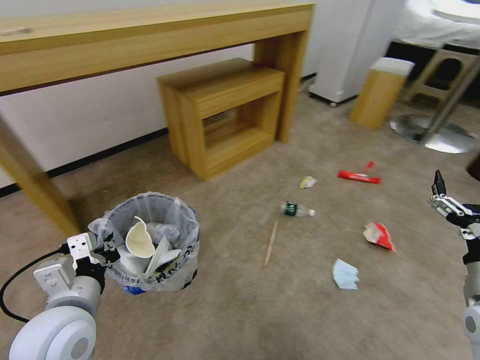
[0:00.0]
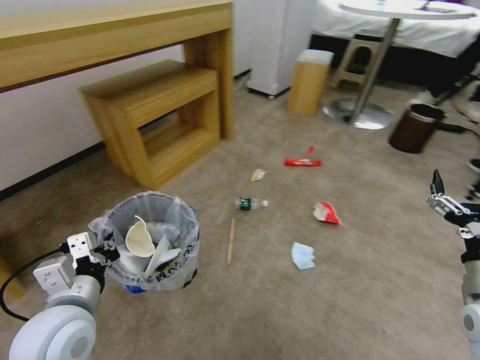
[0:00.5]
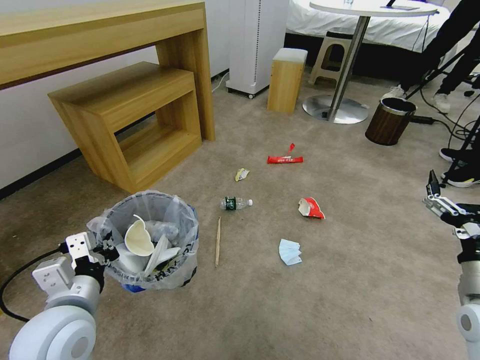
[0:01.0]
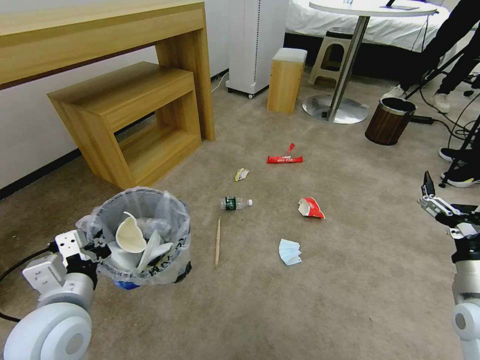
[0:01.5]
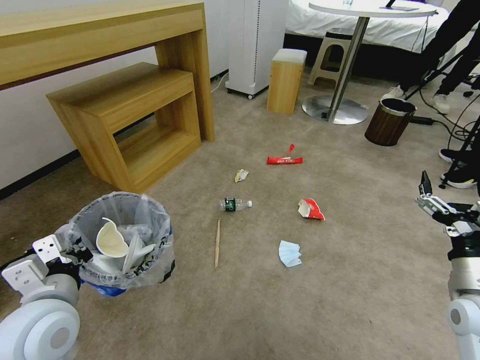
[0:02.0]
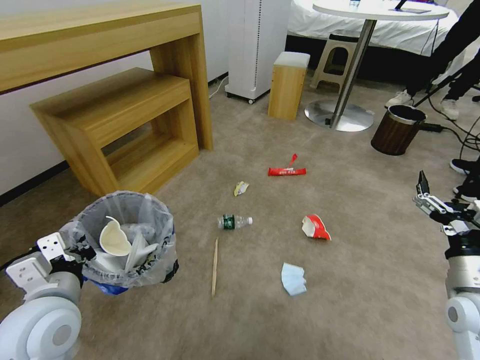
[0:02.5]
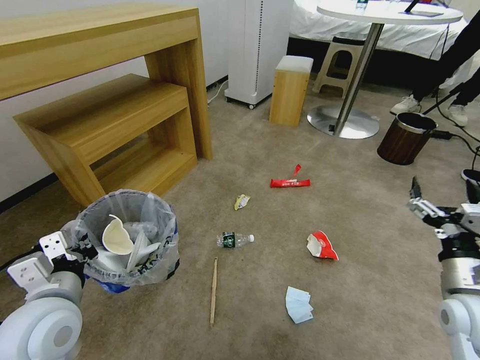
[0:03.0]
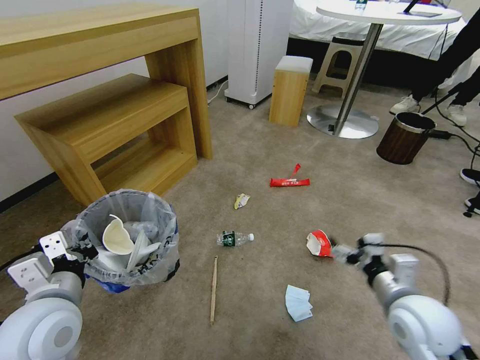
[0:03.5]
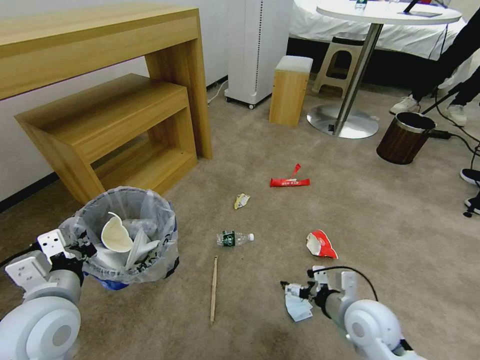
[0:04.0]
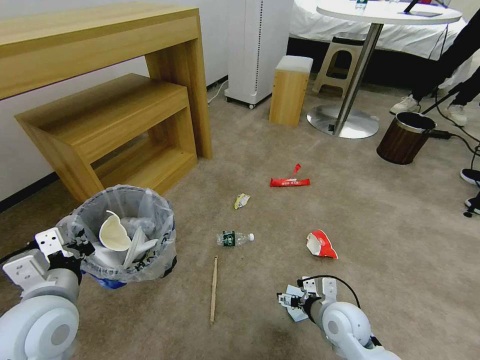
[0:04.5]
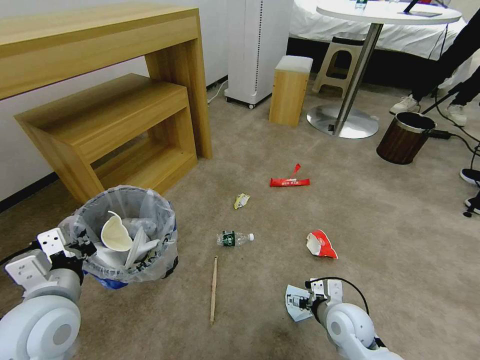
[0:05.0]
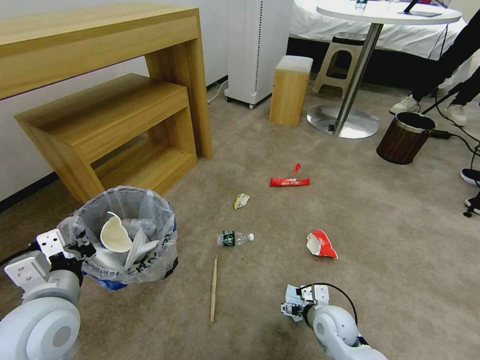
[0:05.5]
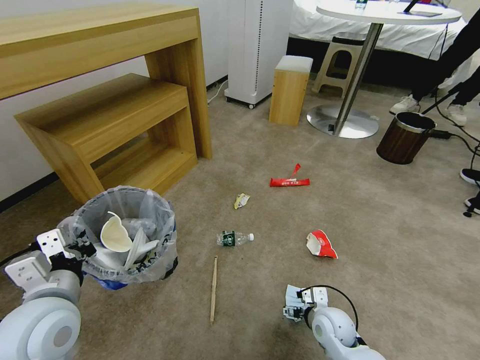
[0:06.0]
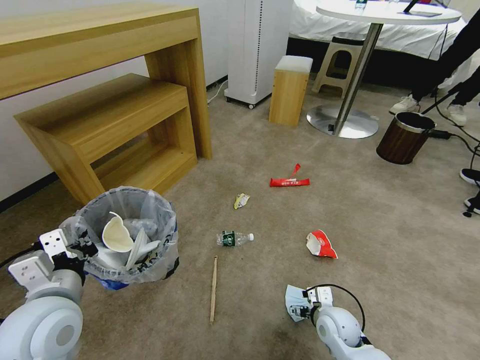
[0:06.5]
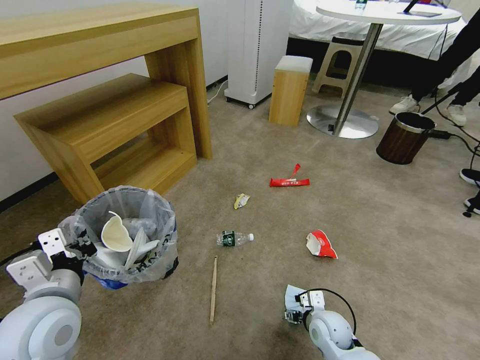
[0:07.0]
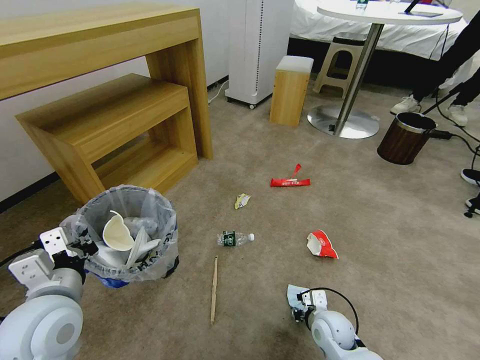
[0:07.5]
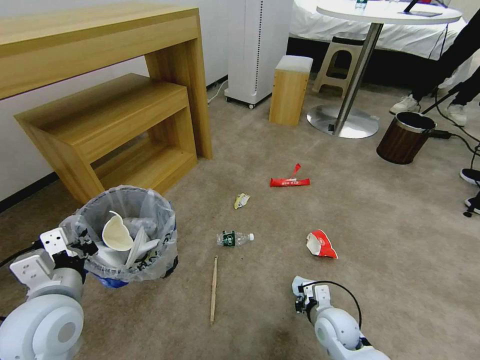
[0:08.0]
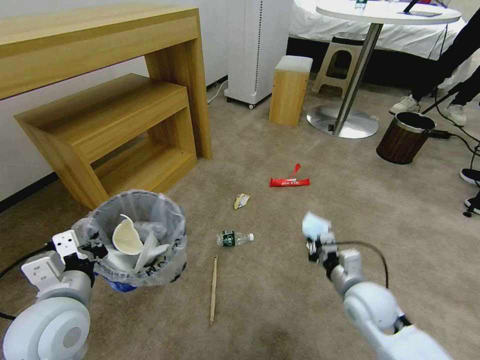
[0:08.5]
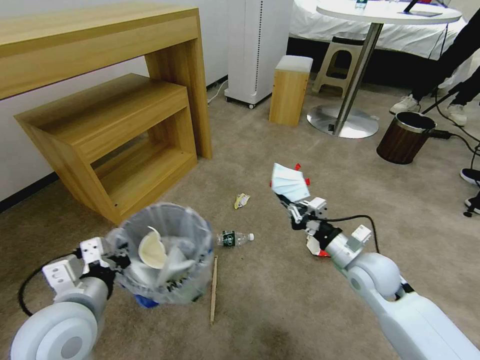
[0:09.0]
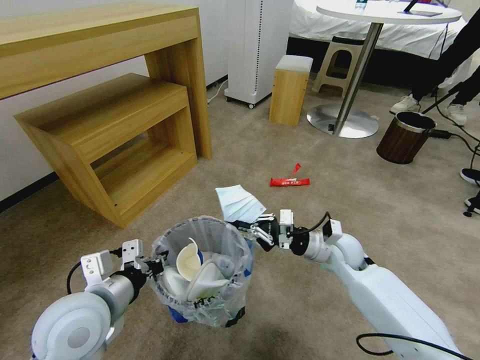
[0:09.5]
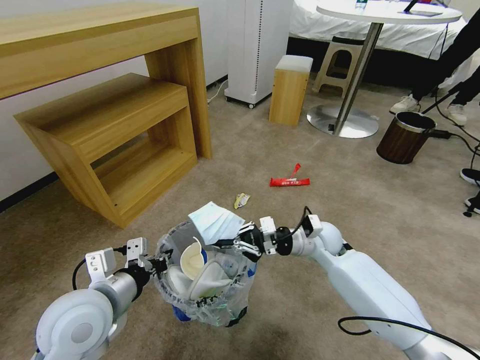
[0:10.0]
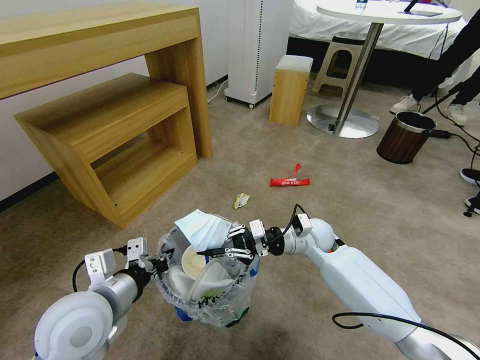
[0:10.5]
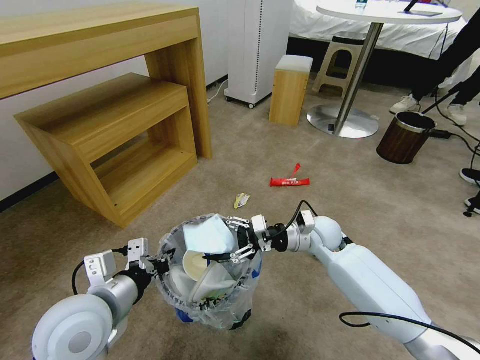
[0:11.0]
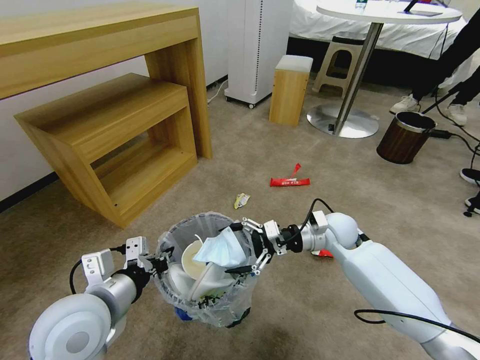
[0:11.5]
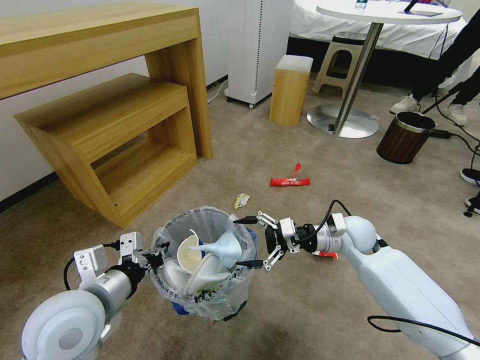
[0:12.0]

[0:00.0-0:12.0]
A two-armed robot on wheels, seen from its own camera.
Task of the whole recording: Pick up the trash bin and place the garbage on the floor into it.
2.0 to 4.0 s: The right gripper goes about 15 cm to the left and downward.
4.0 to 6.0 s: The right gripper heads downward, covering approximately 15 cm.
6.0 to 8.0 s: The right gripper closes.
8.0 to 10.0 s: The right gripper shifts some 20 cm forward and upward.
10.0 to 12.0 s: The right gripper moves to the right, roughly 5 cm, and opens up.

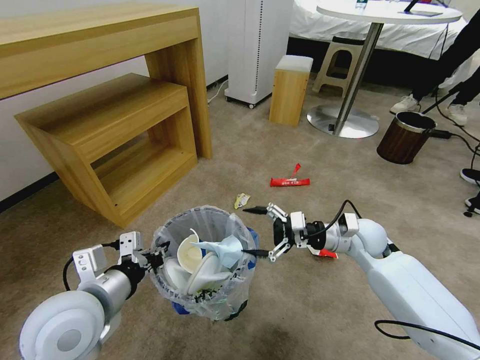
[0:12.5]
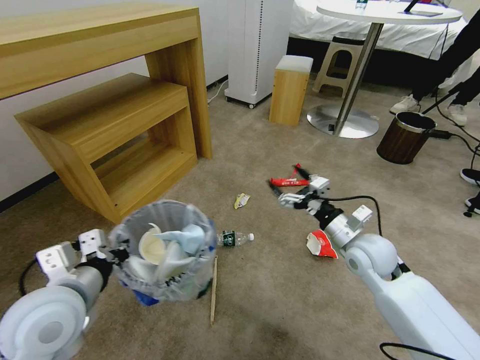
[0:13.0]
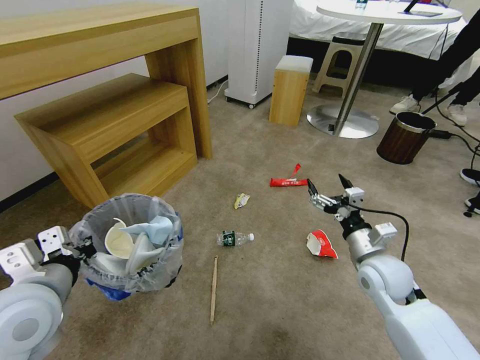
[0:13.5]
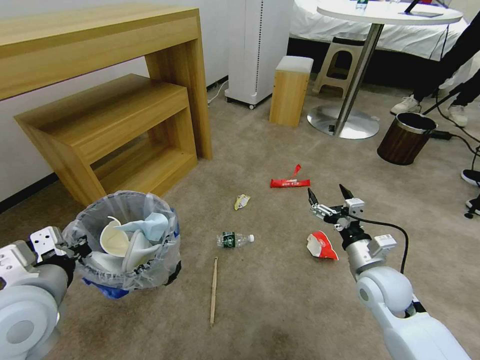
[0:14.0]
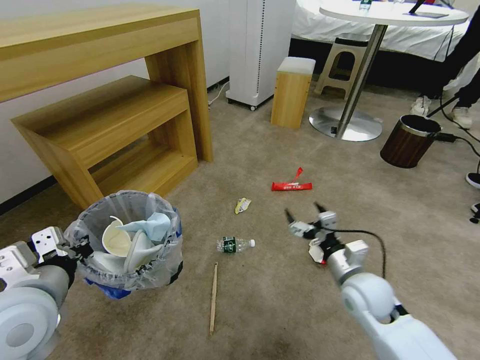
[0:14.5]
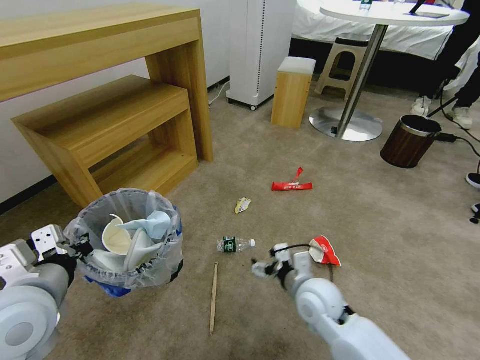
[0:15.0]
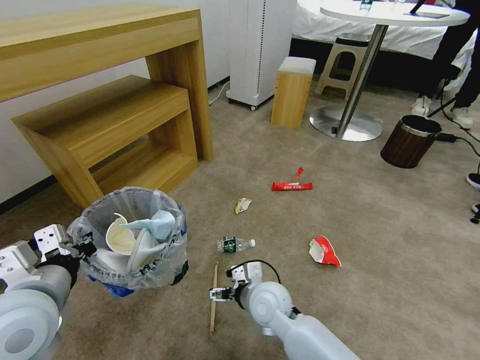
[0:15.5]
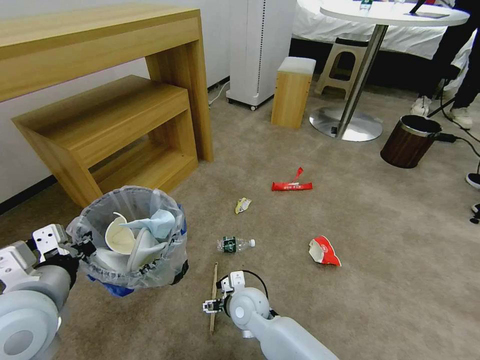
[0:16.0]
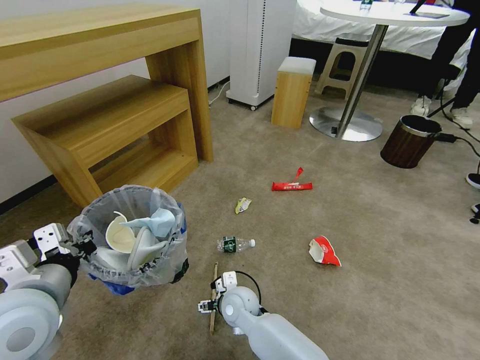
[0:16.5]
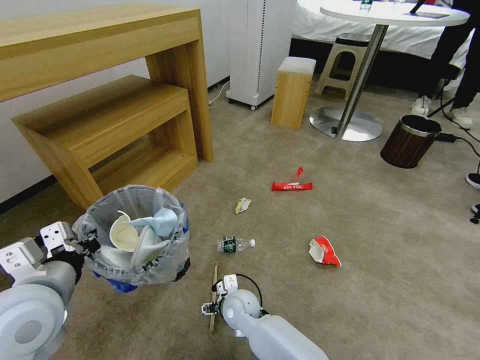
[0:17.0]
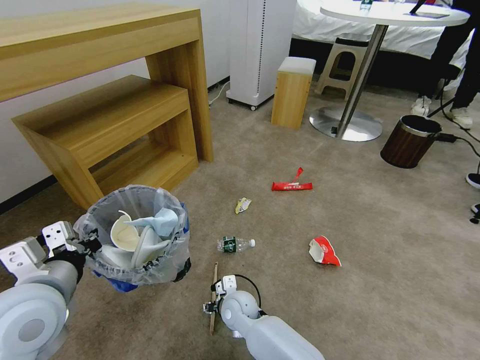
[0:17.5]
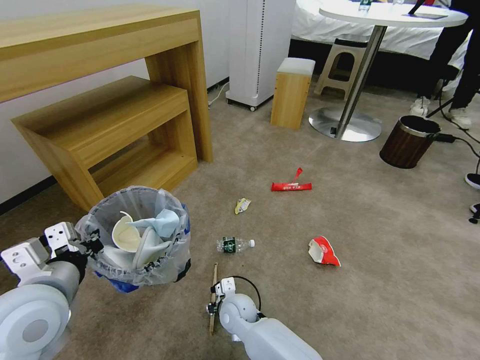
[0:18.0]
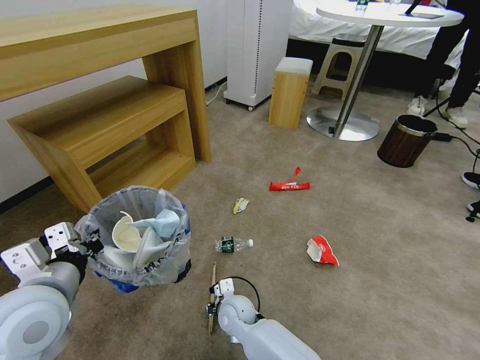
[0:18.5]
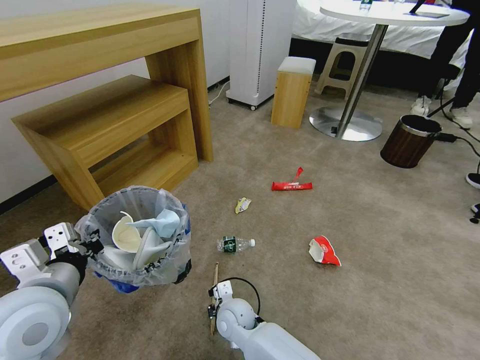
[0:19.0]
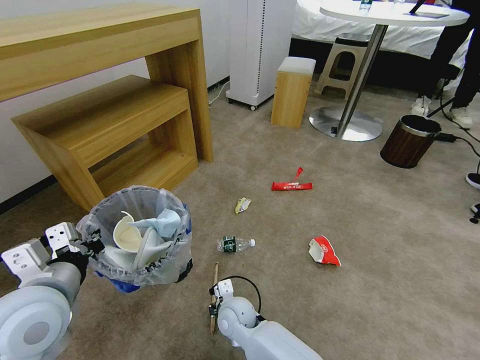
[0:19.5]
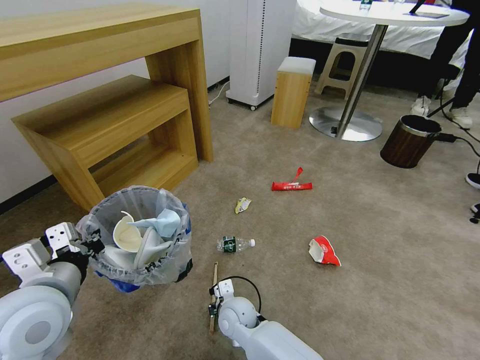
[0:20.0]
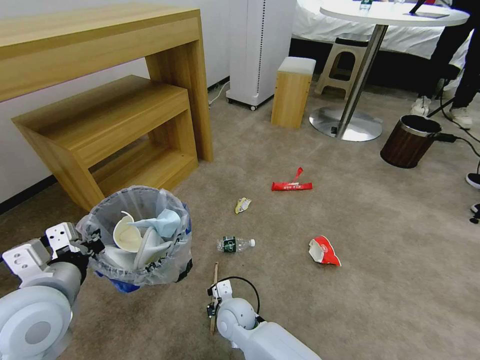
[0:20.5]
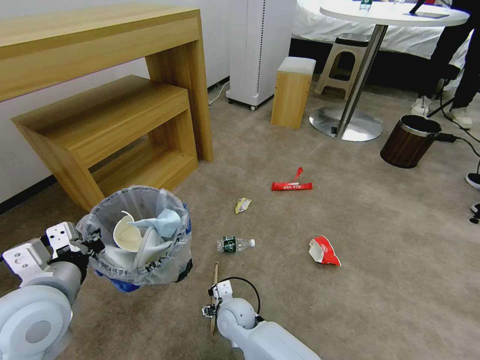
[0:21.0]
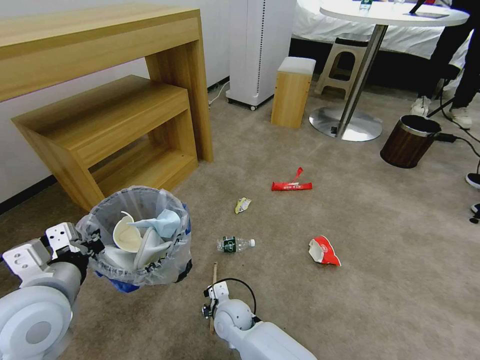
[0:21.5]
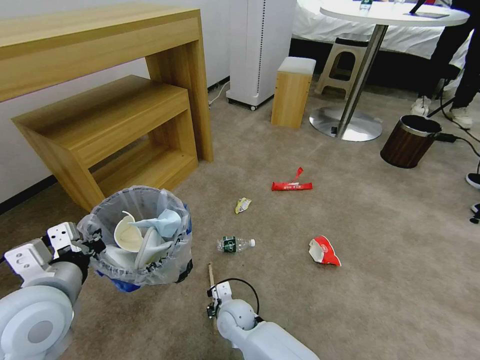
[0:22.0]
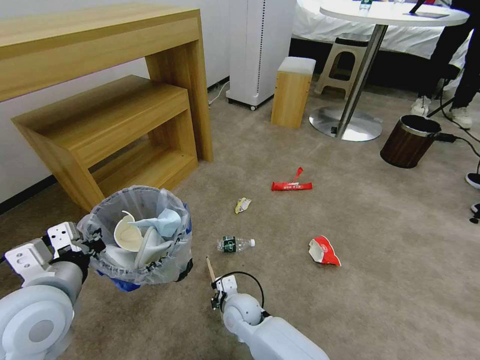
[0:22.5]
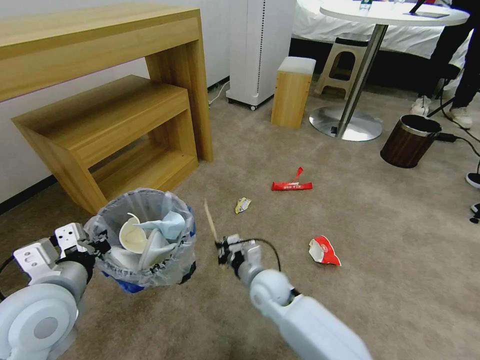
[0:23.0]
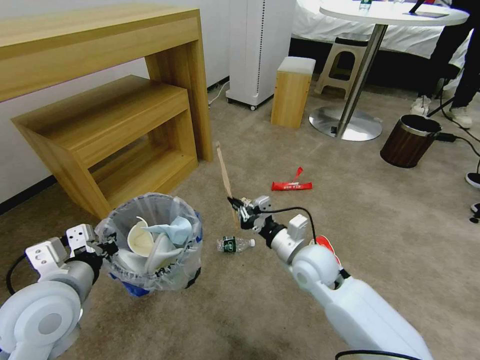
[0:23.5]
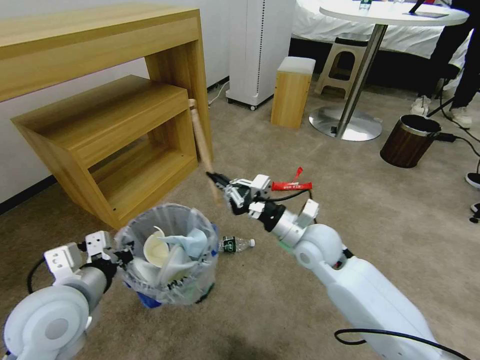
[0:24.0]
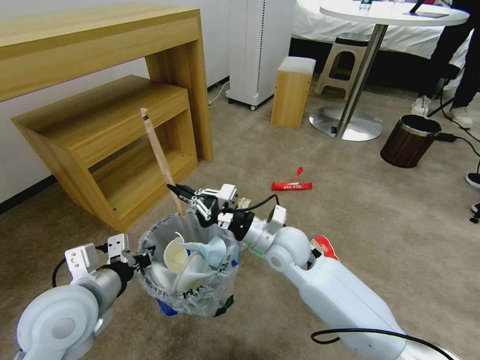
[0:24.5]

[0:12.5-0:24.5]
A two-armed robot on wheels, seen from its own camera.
Task of the whole recording: Pick up the trash bin and place the garbage on the floor into it.
12.5 to 14.5 s: The right gripper is displaced backward by approximately 10 cm. The left gripper is displaced to the left by roughly 5 cm.
14.5 to 16.5 s: The right gripper shifts roughly 30 cm to the left and downward.
16.5 to 18.5 s: The right gripper closes.
18.5 to 20.5 s: There are only small adjustments of the grippers.
20.5 to 22.5 s: The right gripper opens, then closes once more.
22.5 to 24.5 s: The right gripper is displaced upward and to the right by approximately 25 cm.

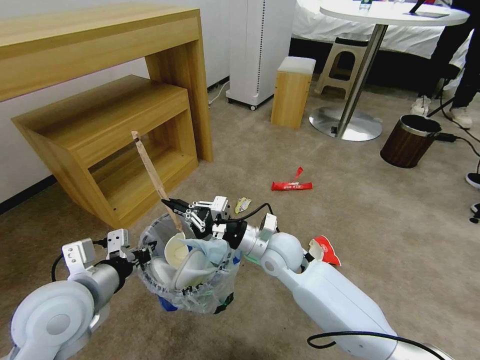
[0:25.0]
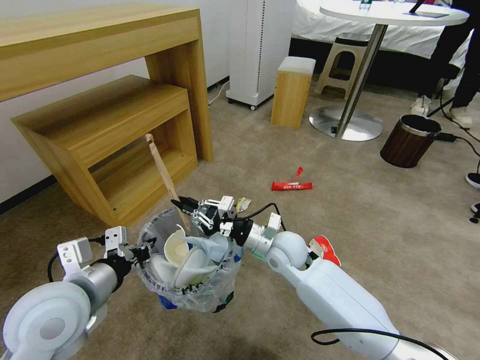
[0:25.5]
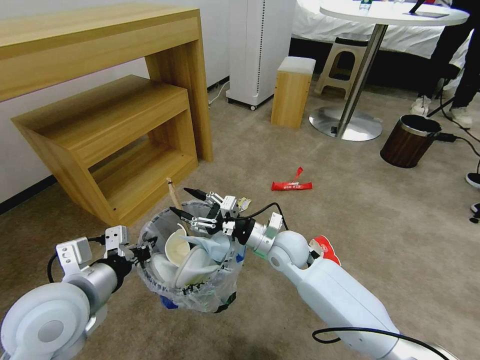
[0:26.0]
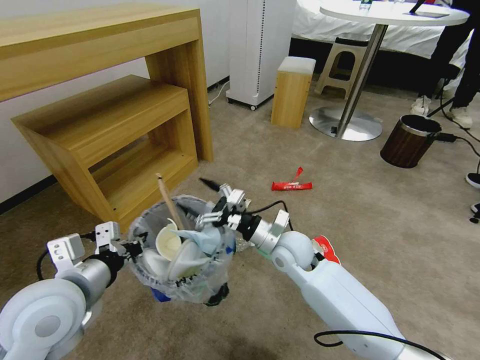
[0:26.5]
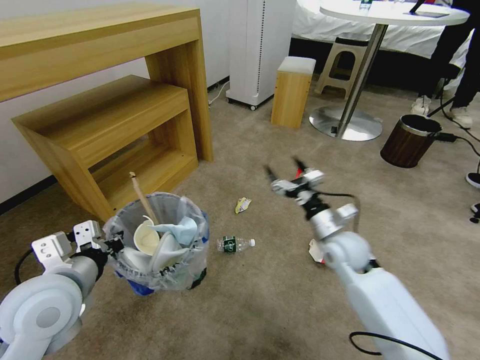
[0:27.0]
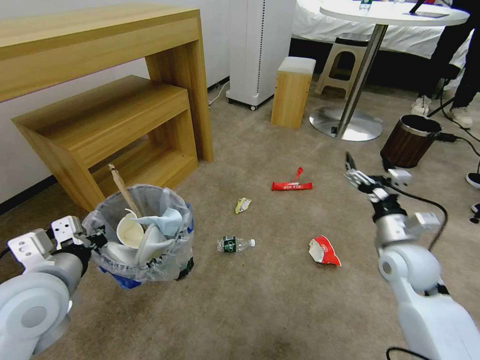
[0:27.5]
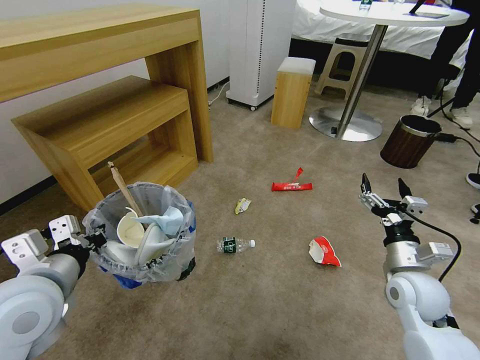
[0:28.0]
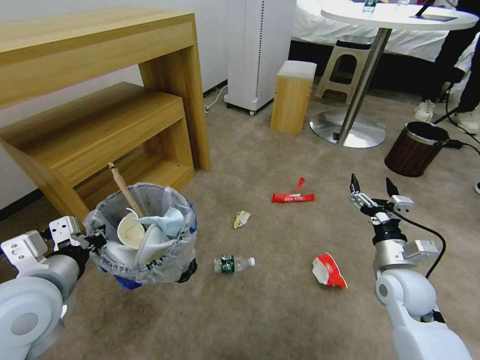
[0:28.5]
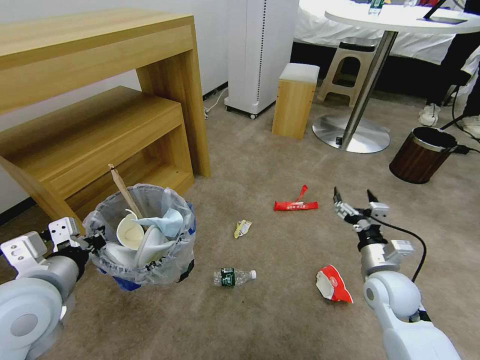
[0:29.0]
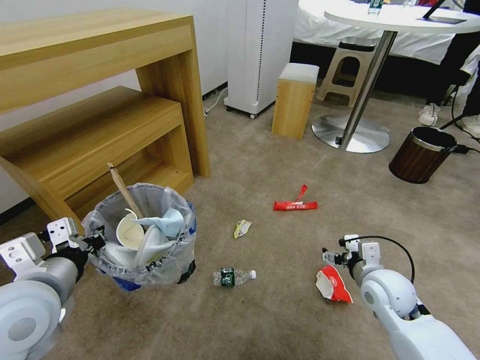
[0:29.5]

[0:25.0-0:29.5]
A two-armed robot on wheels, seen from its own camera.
Task of the whole recording: Pick up the trash bin and place the garbage on the floor into it.
25.0 to 27.0 s: The right gripper moves to the right, roughly 15 cm, and opens its fingers.
27.0 to 29.5 s: The right gripper travels backward and to the right by some 10 cm.
